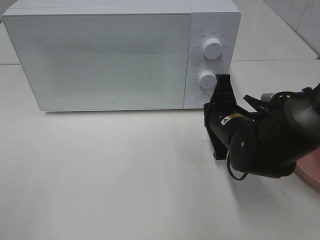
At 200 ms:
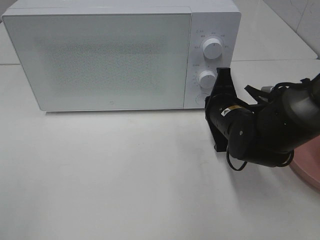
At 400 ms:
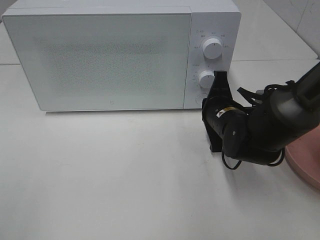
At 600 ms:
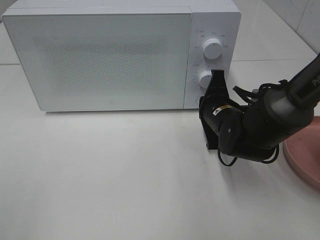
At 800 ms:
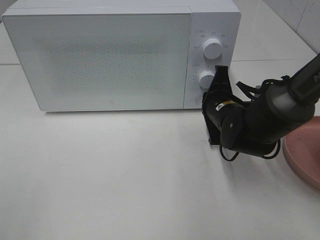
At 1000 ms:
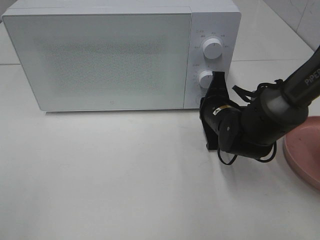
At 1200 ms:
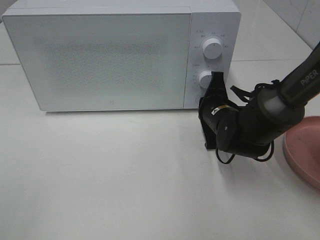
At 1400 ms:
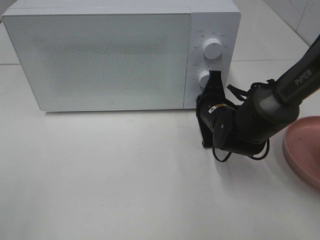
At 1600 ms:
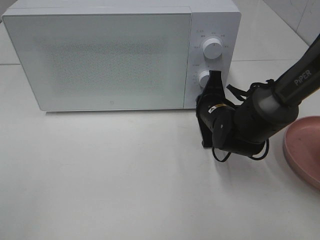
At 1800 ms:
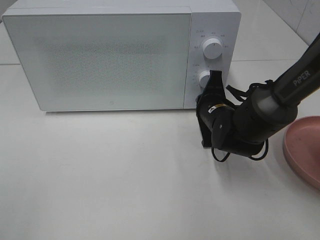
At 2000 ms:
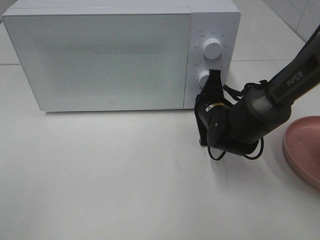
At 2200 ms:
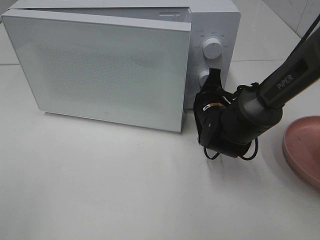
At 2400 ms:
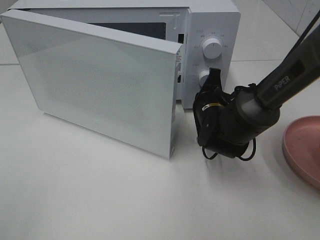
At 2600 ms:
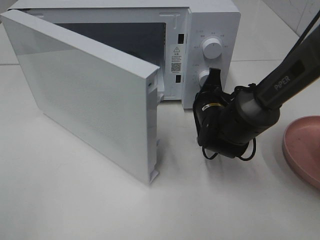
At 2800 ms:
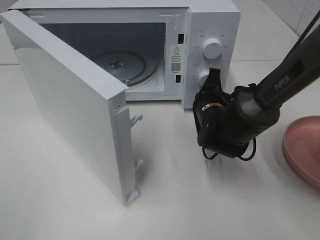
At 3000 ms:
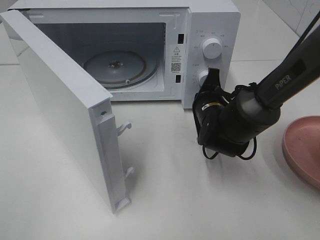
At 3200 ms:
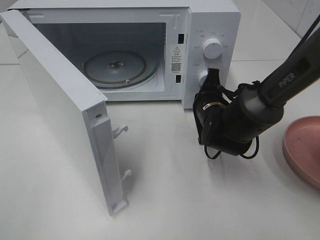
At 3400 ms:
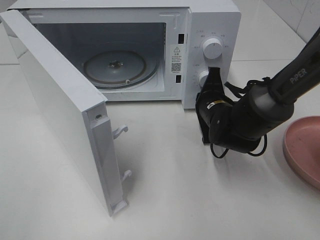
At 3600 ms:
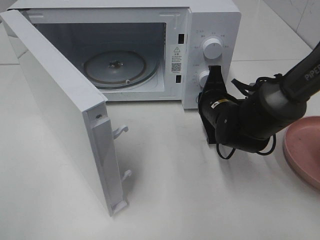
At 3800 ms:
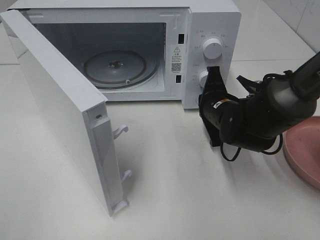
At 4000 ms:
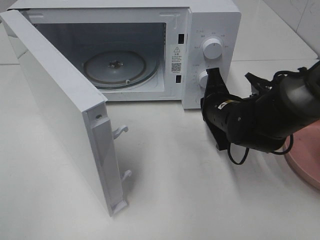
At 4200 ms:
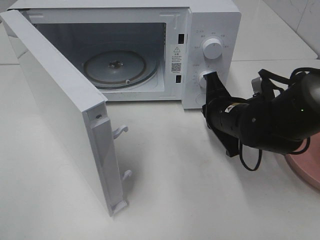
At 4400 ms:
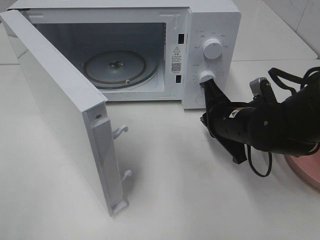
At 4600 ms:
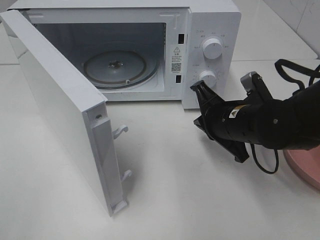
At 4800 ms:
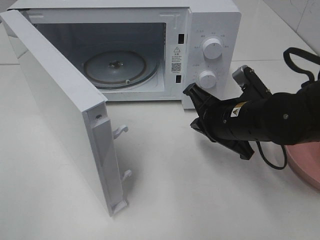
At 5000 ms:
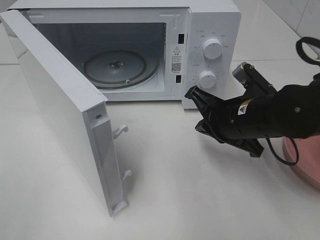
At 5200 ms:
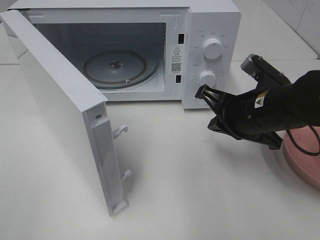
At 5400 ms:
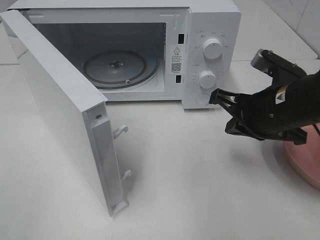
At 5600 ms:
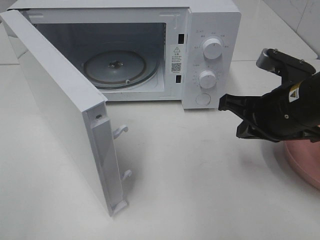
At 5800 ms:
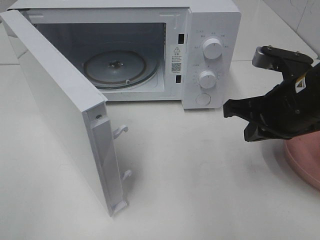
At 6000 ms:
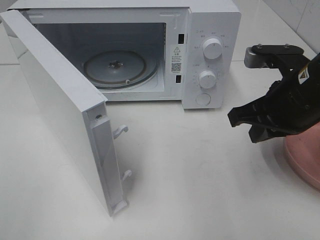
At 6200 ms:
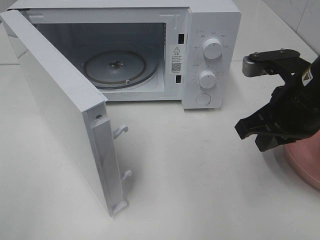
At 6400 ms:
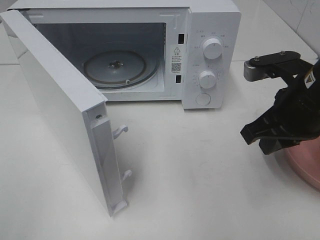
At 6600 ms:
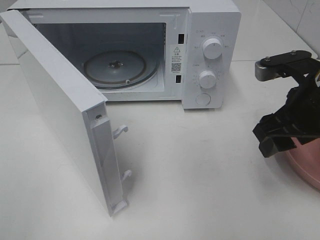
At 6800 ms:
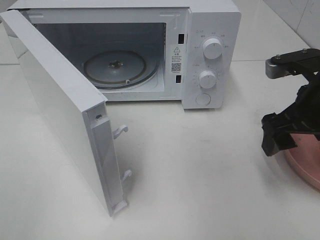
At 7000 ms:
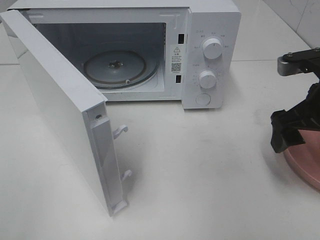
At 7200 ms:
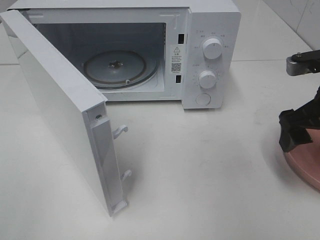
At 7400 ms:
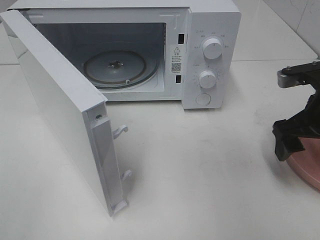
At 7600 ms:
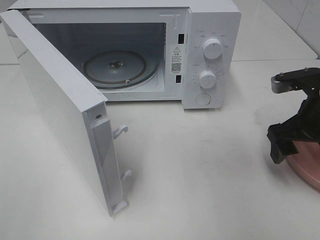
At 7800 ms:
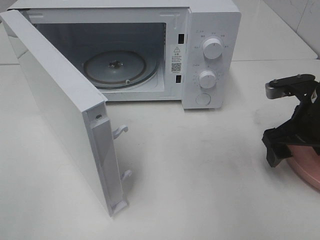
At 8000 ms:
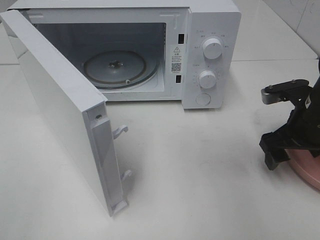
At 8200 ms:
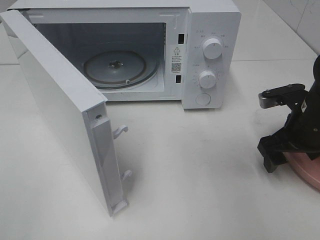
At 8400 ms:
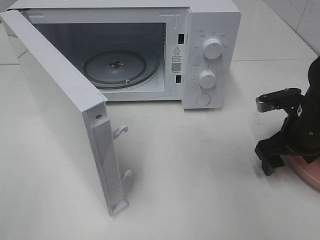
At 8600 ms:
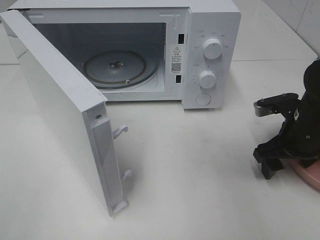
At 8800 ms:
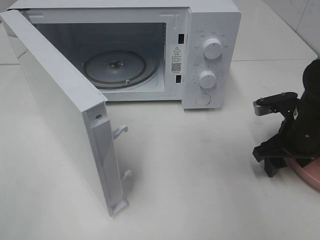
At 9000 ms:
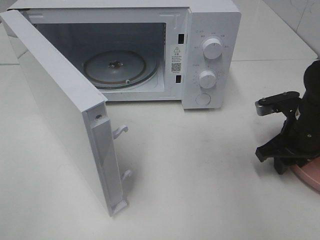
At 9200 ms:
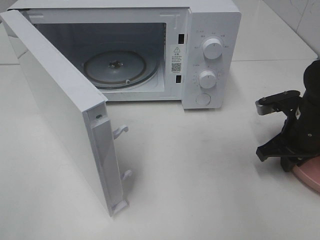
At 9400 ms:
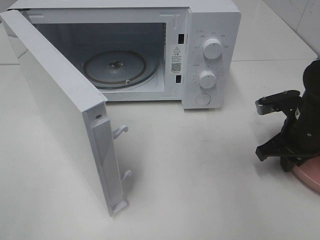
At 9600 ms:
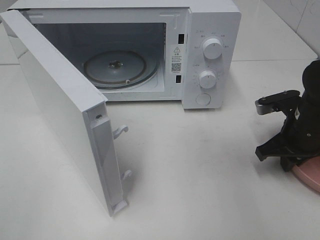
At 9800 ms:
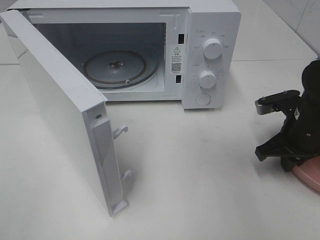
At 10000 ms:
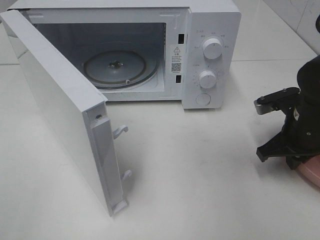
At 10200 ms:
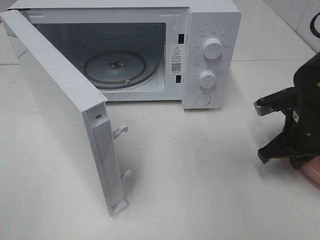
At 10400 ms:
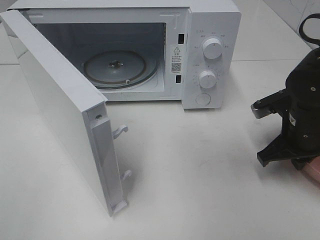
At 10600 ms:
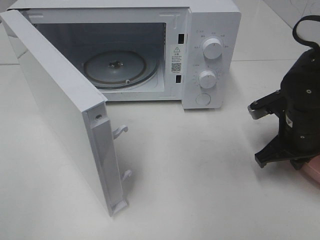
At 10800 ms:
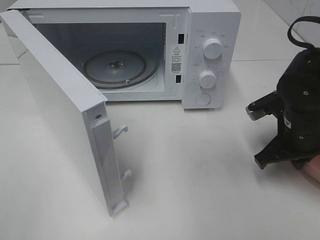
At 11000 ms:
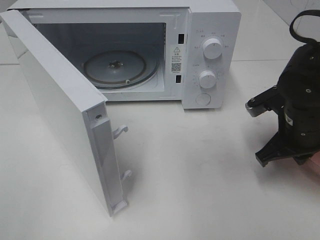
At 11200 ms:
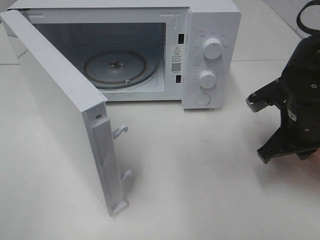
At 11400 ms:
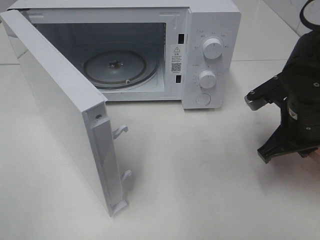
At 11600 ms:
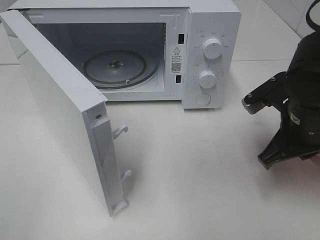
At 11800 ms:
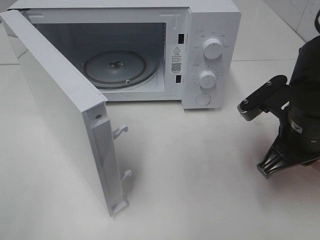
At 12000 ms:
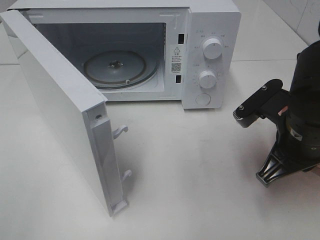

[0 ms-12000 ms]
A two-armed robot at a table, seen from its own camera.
Task of the whole recording: Heat the burger.
Step, 0 ms to 4000 ms: Right hand: press the switch.
Step, 4200 ms to 10000 ms: Right hand: grab the plate with the hamburger.
0 ms to 1600 ms: The right gripper moves forward, about 5 cm.
3000 ms to 4400 ms: The right gripper moves backward, roughly 5 cm.
4400 ms to 6000 ms: The right gripper goes roughly 10 cm upward.
6000 ms to 7600 ms: The right gripper travels to the right by about 5 cm, and opens its fingers.
7600 ms to 9000 ms: The right gripper goes approximately 5 cm downward, and closes its fingers.
9000 ms to 10400 ms: The right gripper closes its fingers.
10400 ms to 12000 ms: The right gripper travels backward, to the left and upward by roughly 10 cm.

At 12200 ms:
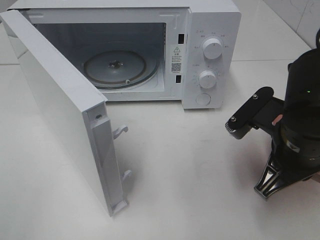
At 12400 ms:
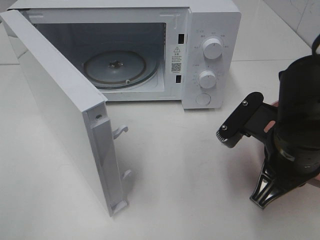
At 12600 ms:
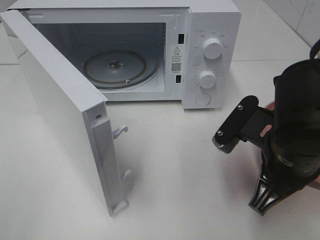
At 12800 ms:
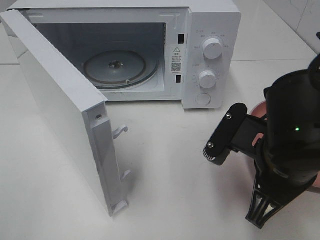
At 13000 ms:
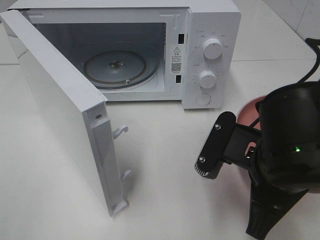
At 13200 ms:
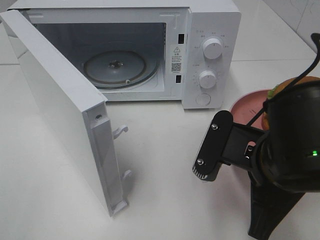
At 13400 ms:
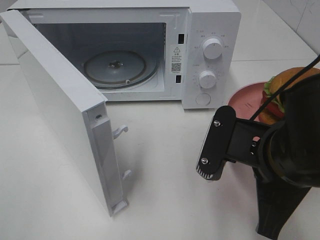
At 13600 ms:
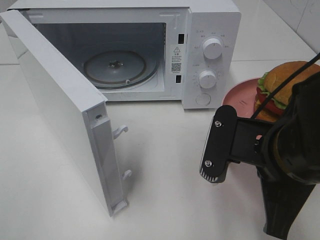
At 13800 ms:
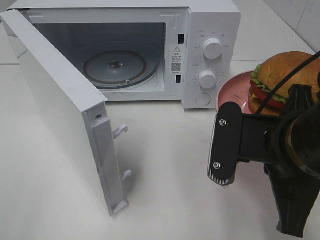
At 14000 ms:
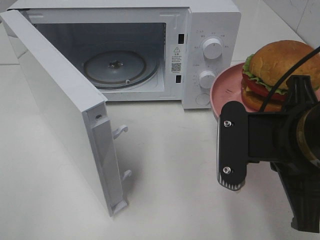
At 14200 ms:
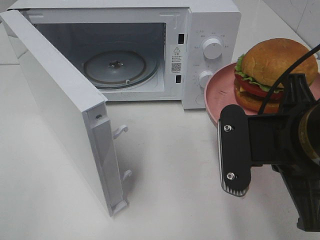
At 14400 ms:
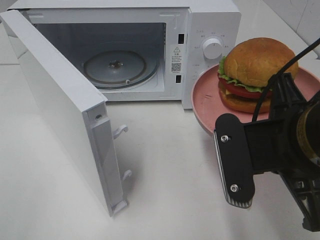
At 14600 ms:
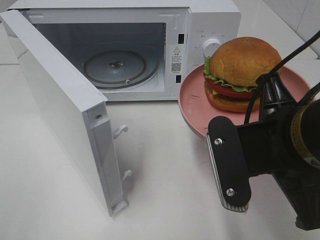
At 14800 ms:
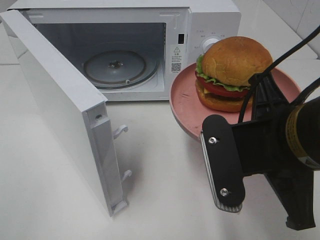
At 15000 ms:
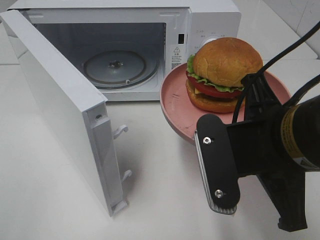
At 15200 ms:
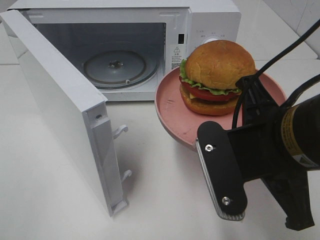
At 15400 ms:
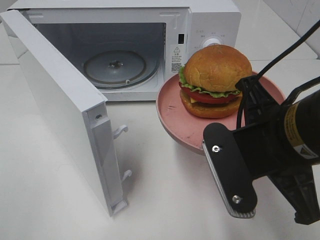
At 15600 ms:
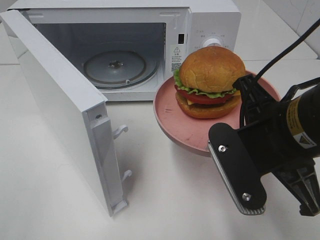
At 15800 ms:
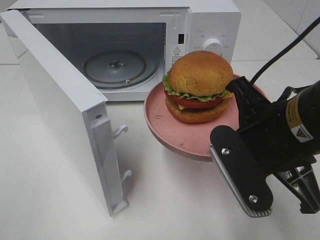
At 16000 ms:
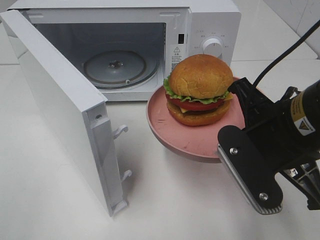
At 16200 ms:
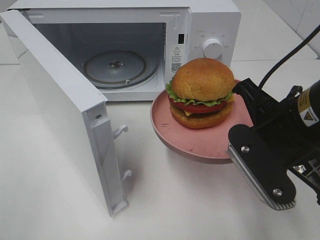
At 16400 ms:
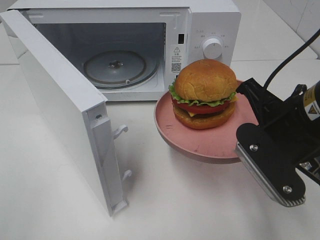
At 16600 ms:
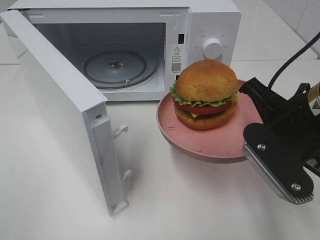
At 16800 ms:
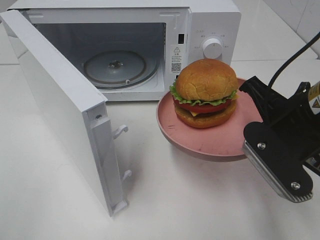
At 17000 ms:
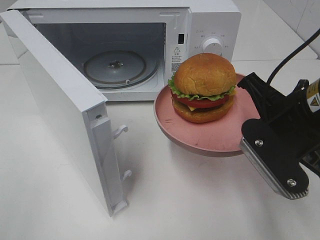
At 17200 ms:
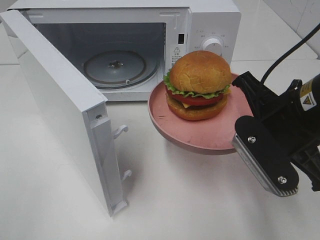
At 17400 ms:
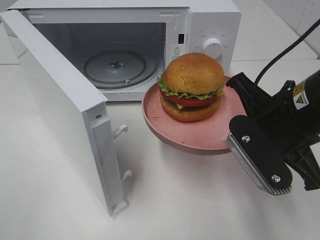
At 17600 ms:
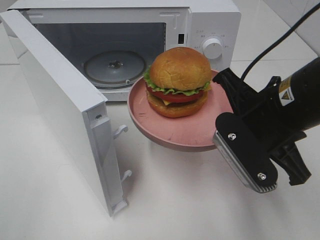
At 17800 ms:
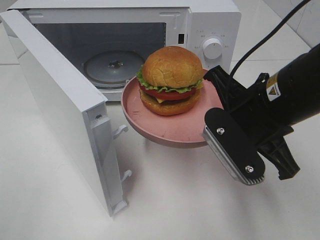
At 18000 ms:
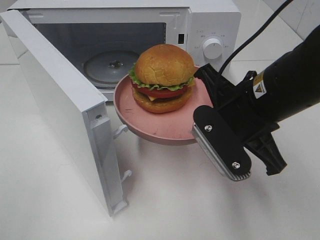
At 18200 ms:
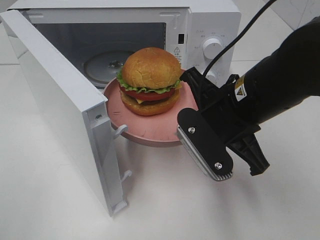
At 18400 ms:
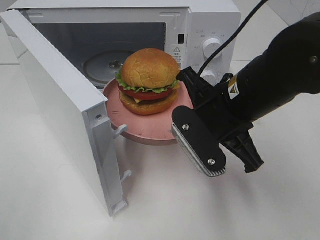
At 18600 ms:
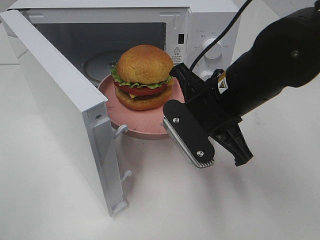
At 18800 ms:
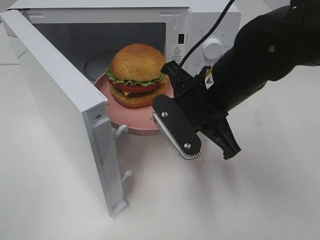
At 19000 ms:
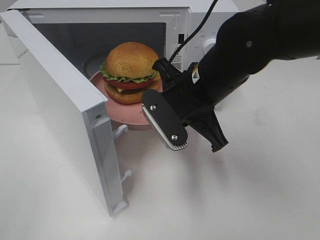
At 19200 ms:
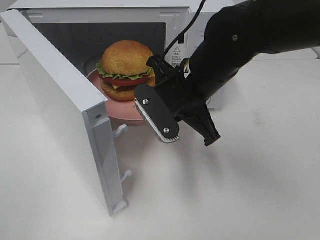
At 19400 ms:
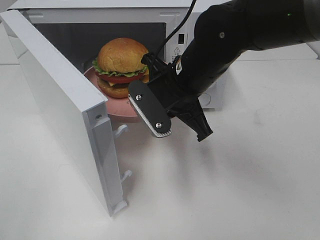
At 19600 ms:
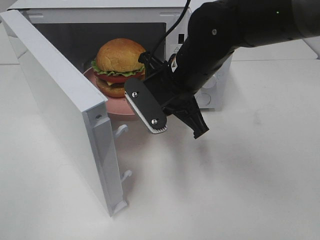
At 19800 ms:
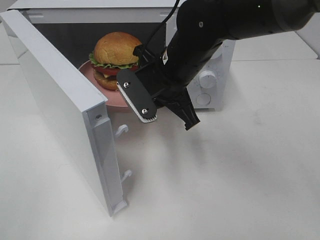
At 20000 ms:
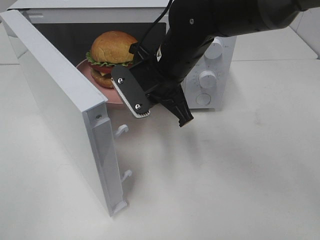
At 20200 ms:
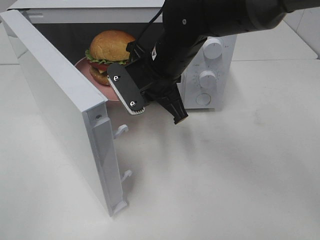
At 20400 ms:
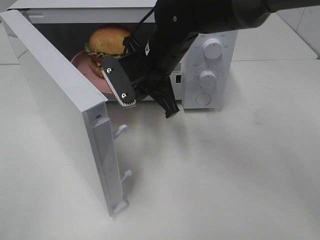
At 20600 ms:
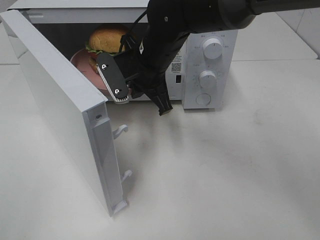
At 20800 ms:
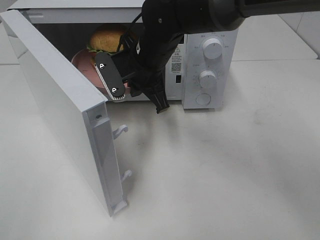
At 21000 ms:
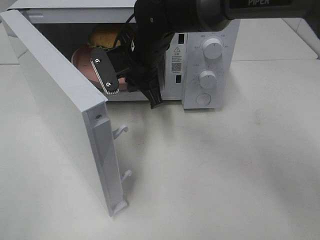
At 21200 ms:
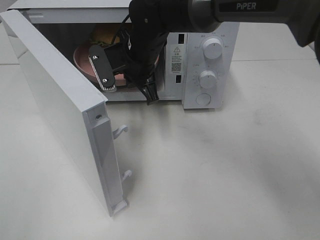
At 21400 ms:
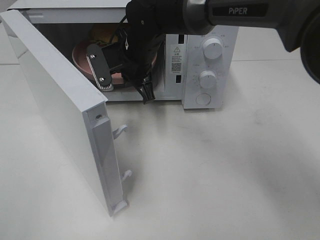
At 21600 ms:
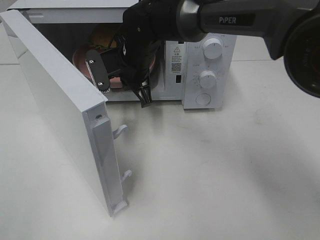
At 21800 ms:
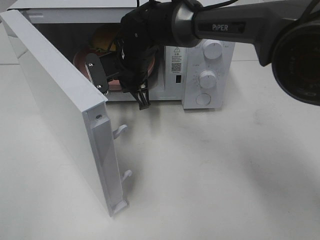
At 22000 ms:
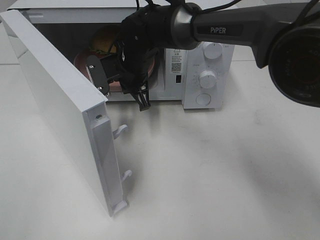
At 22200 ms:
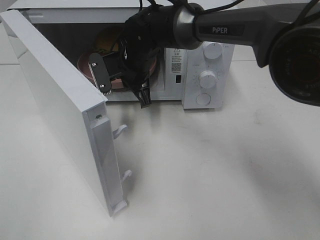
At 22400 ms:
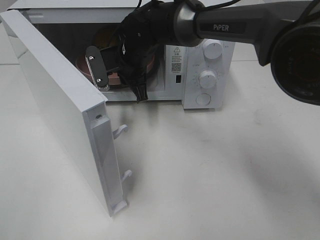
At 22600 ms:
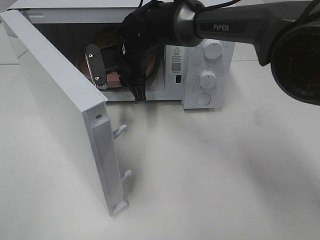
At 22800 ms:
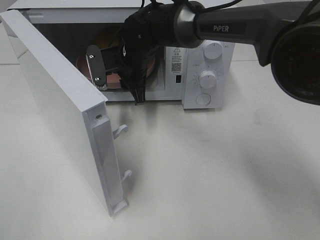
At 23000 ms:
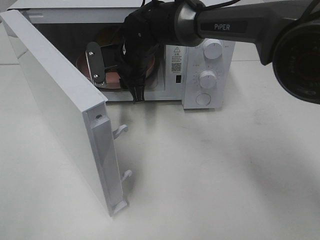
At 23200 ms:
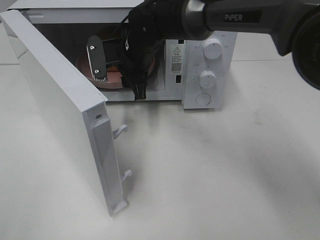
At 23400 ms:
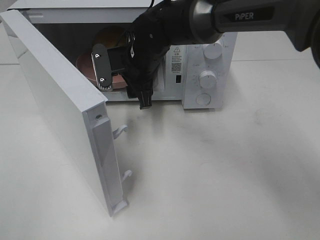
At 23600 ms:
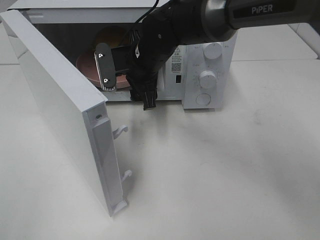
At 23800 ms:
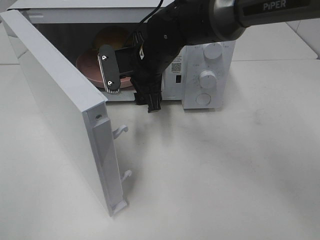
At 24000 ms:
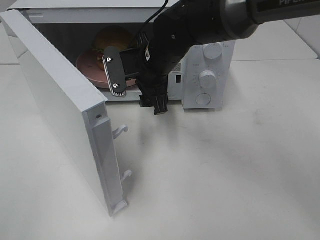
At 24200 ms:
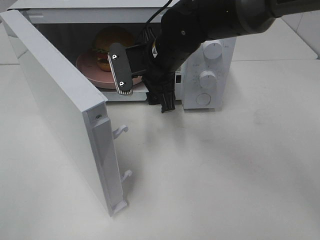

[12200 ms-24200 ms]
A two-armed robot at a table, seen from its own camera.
Task of the whole recording: Heat the burger.
Step, 12200 ms to 23200 ms: Right hand: place the plate in the microwave.
12200 ms to 13800 ms: The right gripper shifts approximately 5 cm backward.
15200 ms to 16600 ms: The right gripper goes about 5 cm forward.
16600 ms to 18200 ms: The right gripper is displaced to the left by approximately 5 cm.
18200 ms to 19800 ms: The right gripper heads forward and to the left, covering some 10 cm.
19800 ms to 21200 ms: The right gripper shifts about 10 cm forward and to the left.
21200 ms to 22600 ms: The right gripper opens up.
22600 ms to 24200 ms: The right gripper shifts about 10 cm backward and to the right, and opens up.
